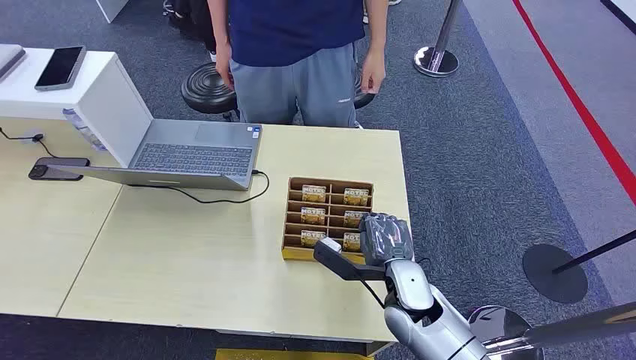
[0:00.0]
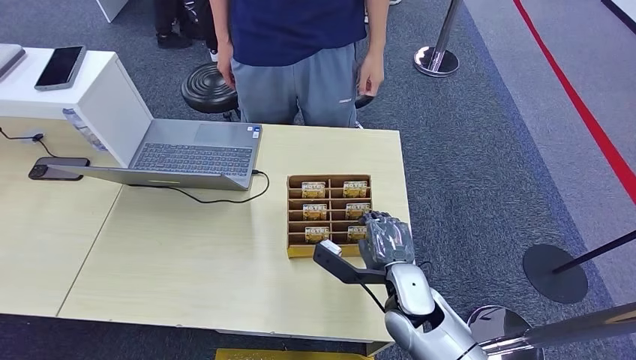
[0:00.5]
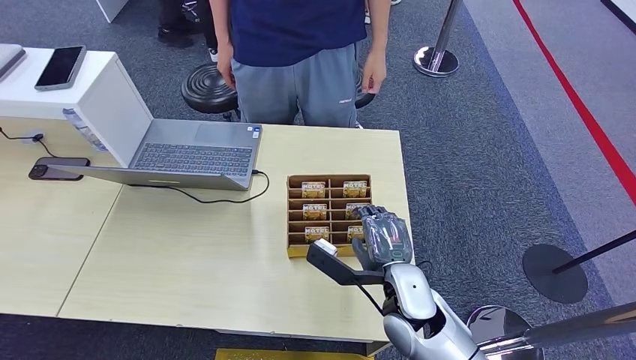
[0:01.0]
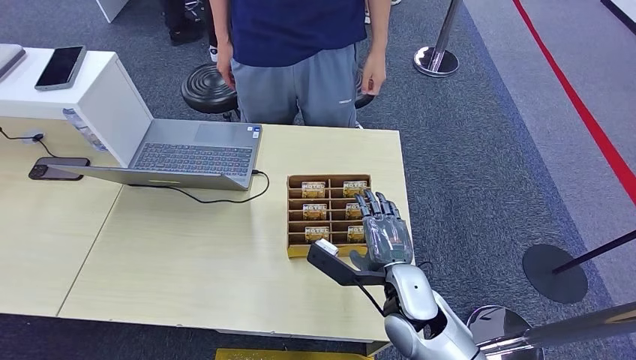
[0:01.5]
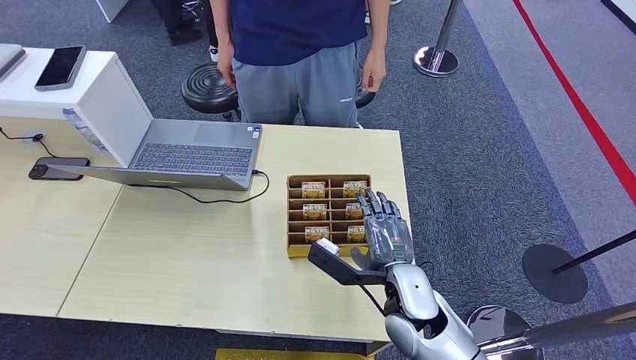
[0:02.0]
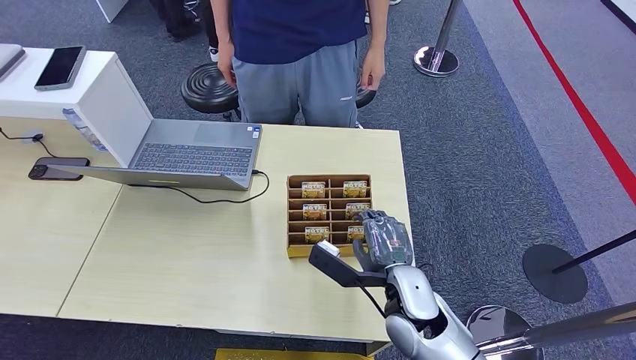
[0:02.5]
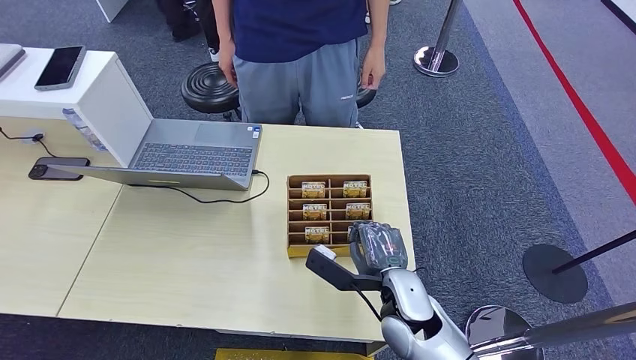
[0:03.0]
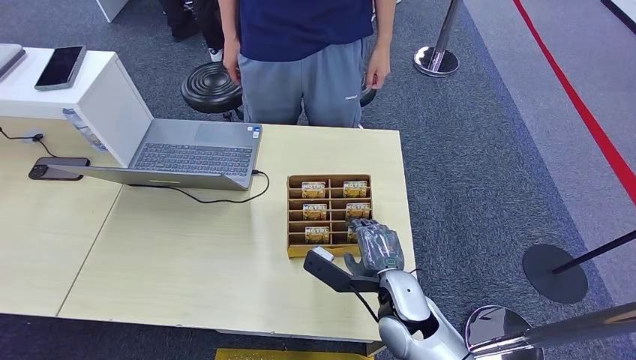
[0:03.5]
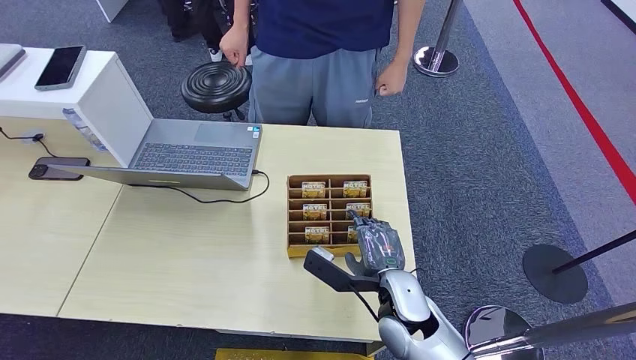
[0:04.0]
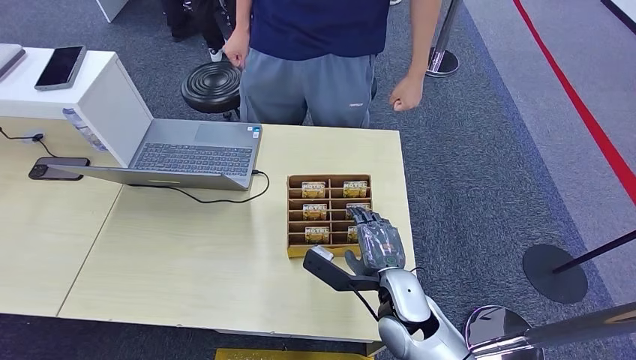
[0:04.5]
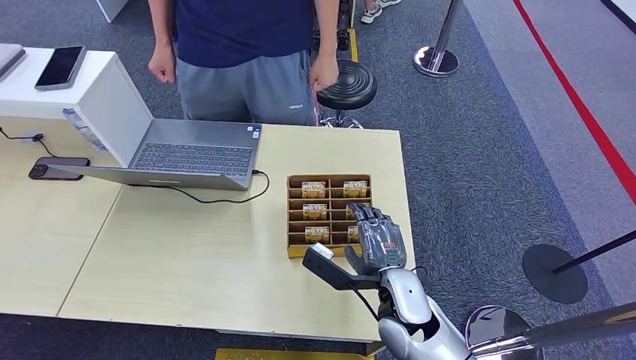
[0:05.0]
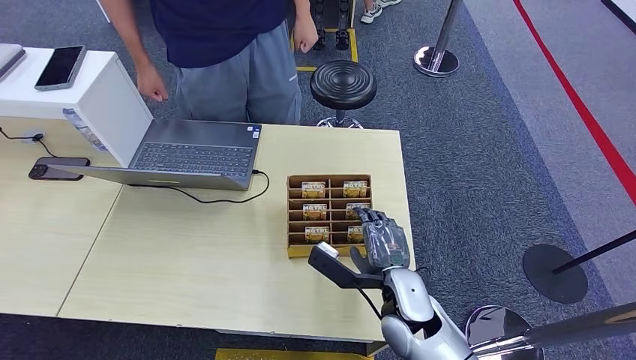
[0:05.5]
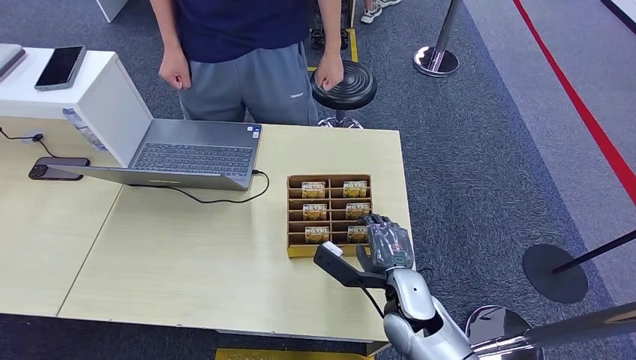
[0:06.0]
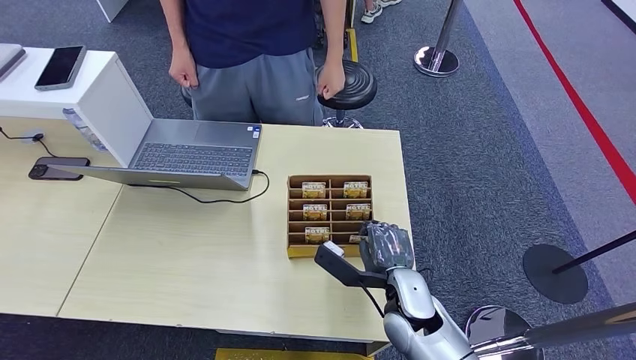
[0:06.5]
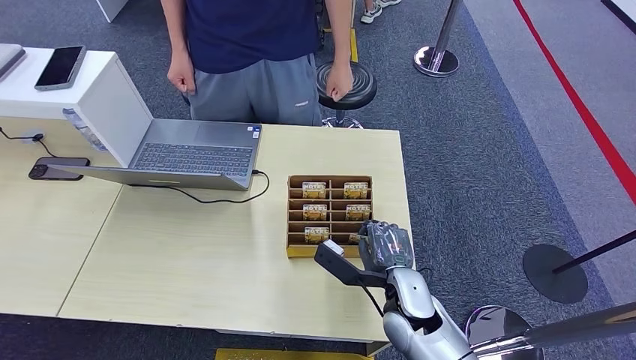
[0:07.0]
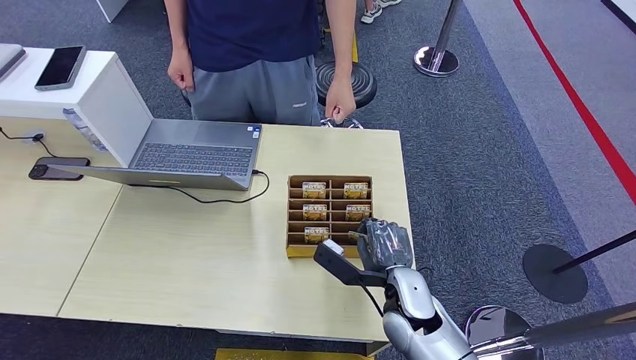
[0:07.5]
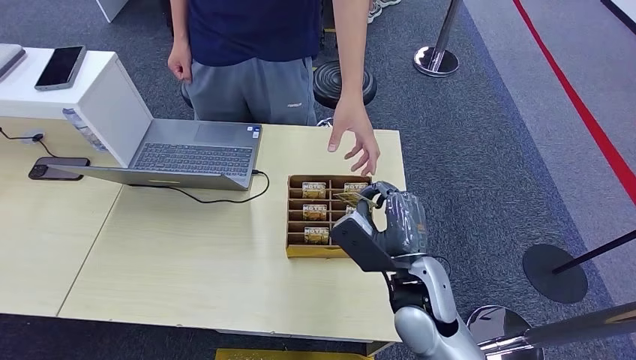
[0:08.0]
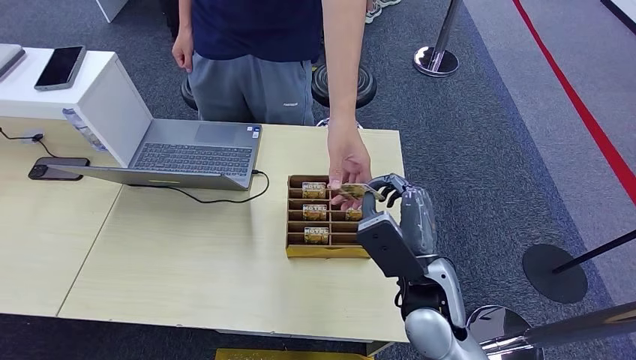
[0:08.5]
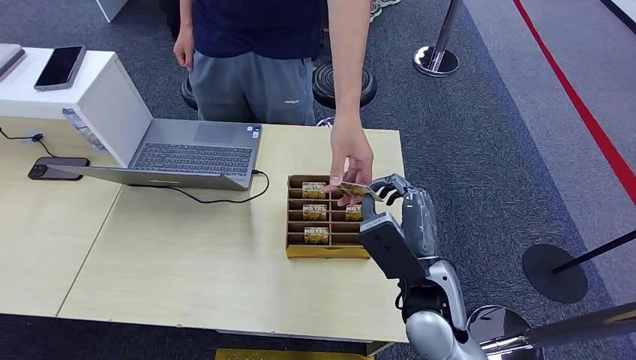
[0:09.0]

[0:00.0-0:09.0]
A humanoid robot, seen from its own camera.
Step, 0:00.0 to 0:07.5: Pick up the key card from the card box.
Step, 0:08.0 to 0:09.0: Hand the key card to the target.
0:02.0 to 0:07.0: The hands make only small movements.
0:07.0 to 0:09.0: The right hand travels upward by roughly 10 cm.
